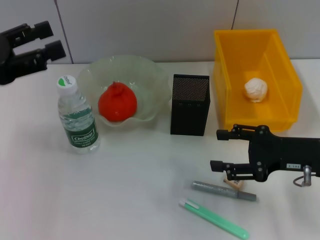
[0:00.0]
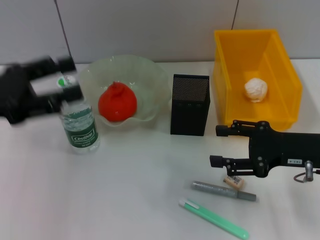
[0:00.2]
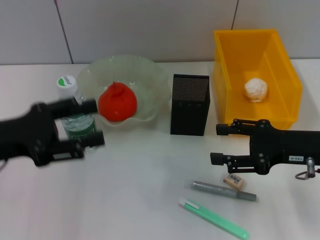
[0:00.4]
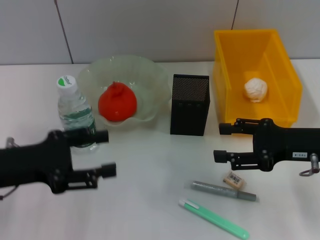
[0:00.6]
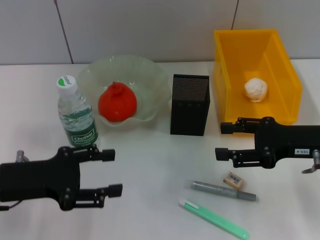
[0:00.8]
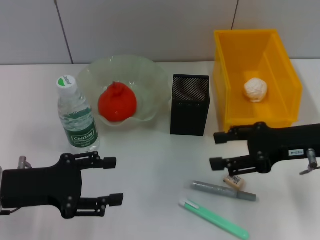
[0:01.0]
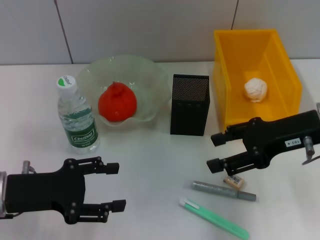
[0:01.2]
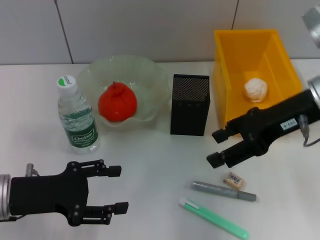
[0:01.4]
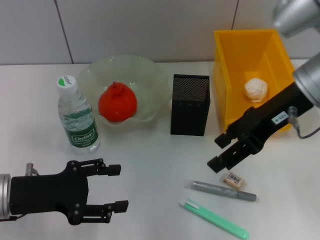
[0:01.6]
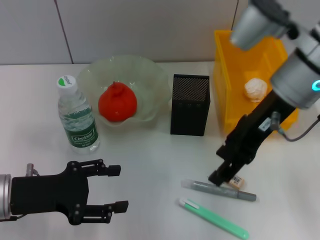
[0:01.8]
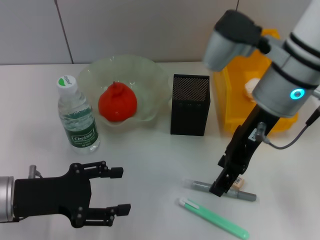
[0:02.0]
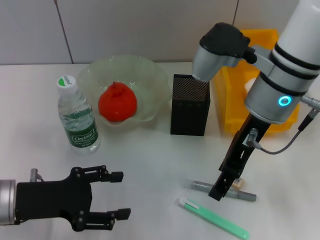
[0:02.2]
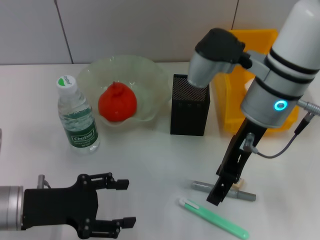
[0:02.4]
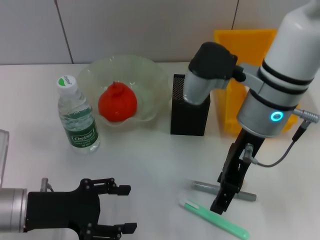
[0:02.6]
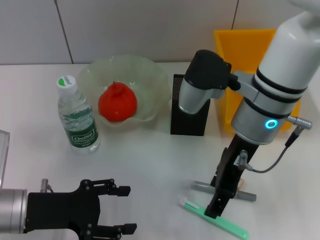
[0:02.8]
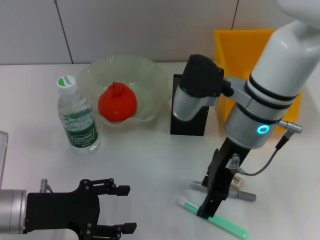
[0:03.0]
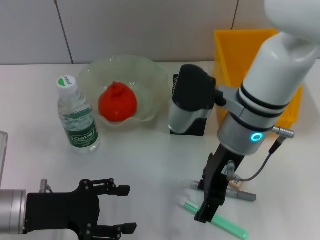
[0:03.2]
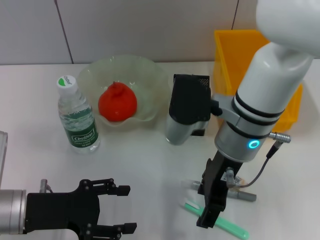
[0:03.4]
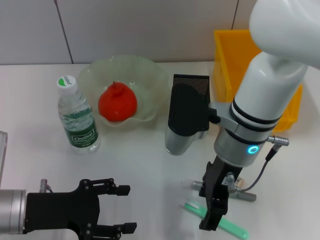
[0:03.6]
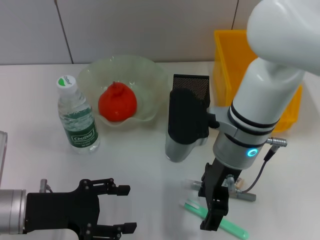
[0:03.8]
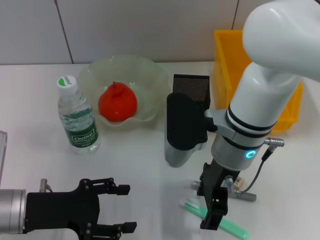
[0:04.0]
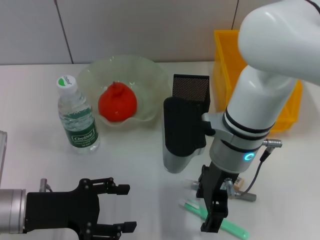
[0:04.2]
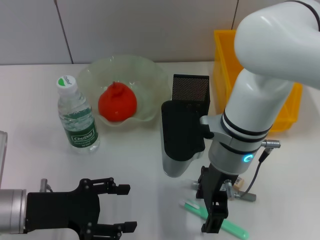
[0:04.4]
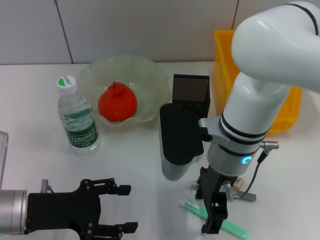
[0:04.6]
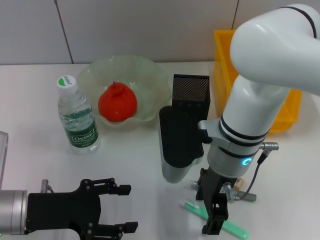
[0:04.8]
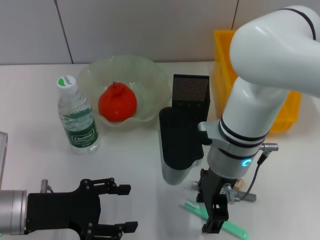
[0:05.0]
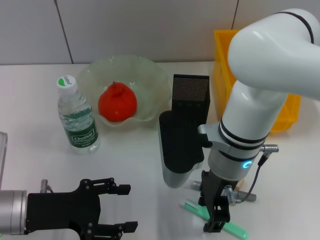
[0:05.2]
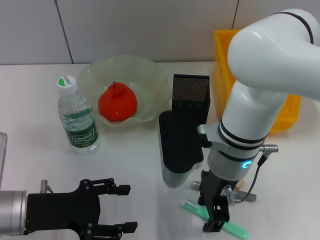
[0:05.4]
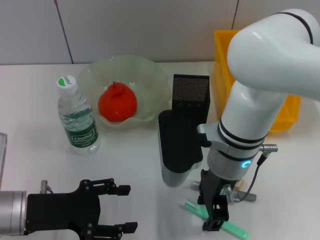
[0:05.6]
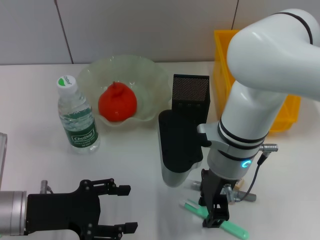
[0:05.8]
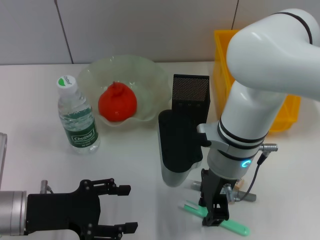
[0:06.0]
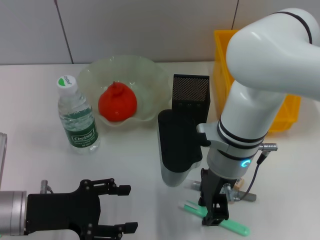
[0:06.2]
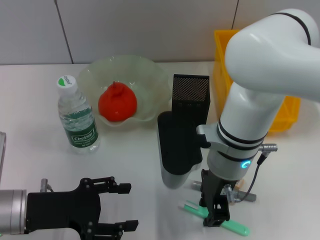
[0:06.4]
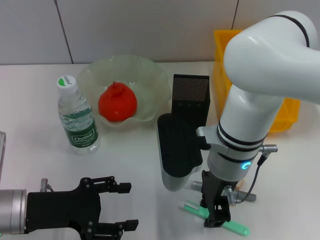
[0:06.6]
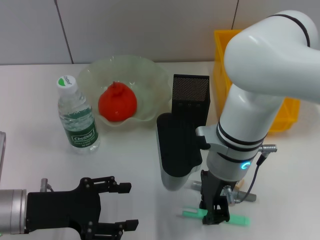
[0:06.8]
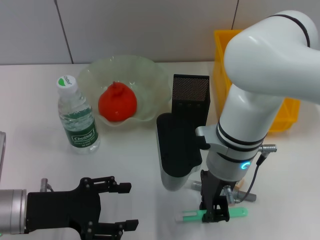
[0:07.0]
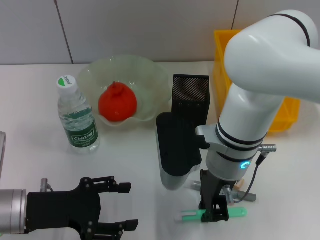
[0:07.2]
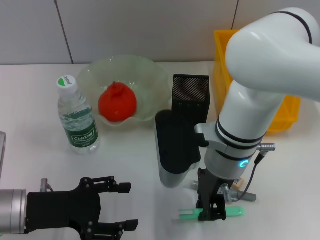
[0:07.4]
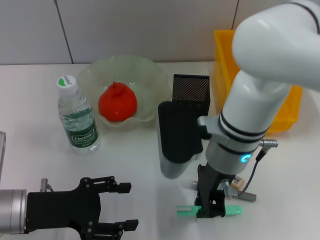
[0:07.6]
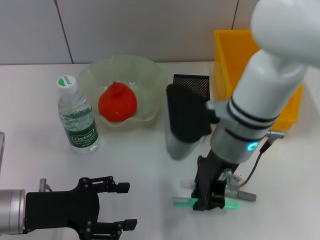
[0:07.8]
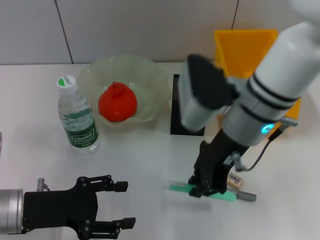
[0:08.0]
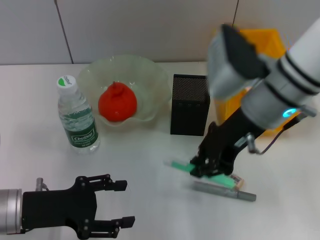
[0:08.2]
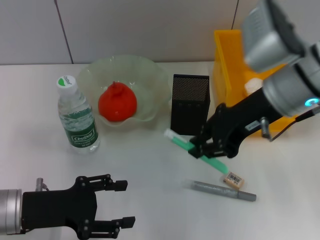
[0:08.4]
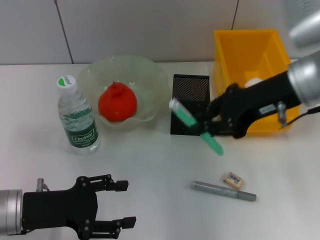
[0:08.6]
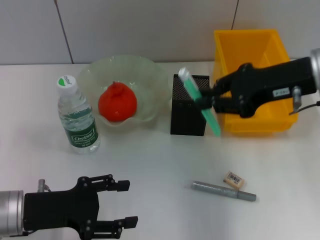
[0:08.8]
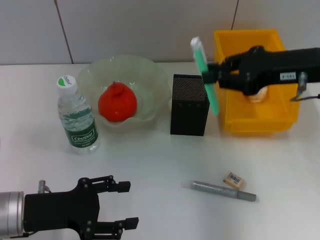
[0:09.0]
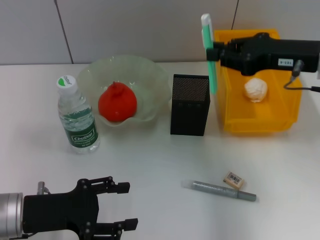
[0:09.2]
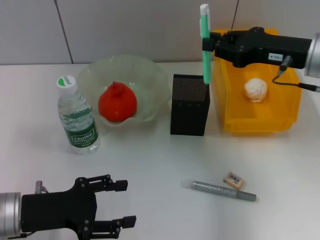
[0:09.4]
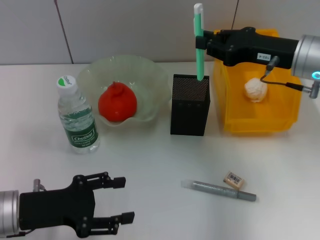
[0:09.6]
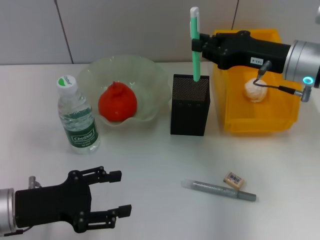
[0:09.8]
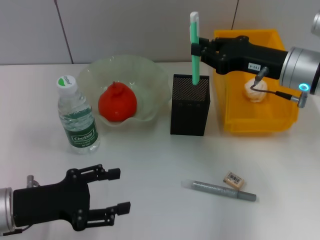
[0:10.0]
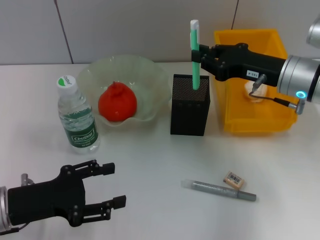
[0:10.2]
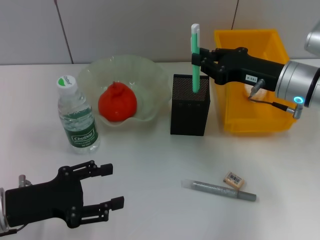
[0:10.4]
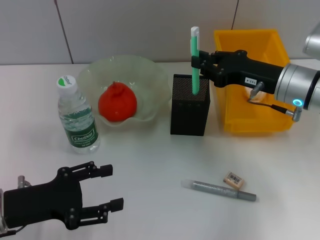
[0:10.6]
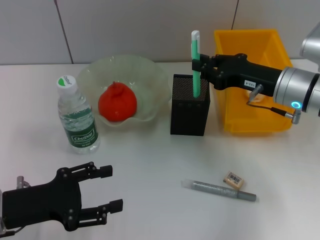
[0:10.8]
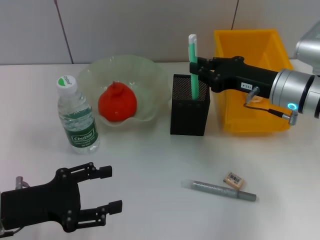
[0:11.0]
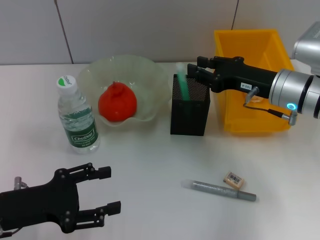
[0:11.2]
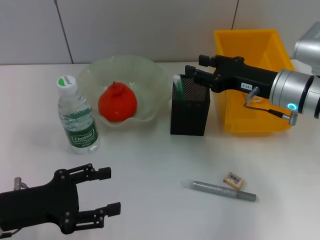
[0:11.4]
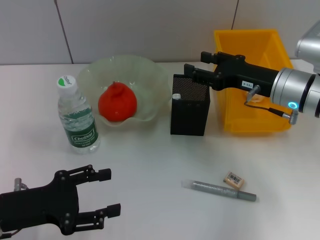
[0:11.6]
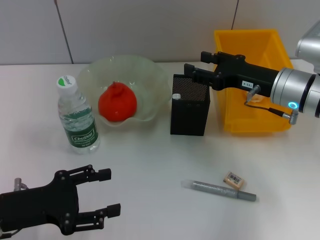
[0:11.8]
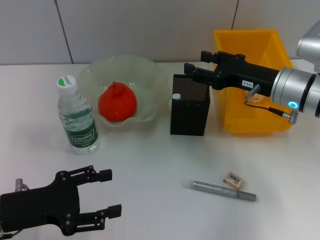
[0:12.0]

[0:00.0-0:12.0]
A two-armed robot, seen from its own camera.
Step, 0:00.0 to 0:07.0: Grab the blue utility knife with the right hand.
Step, 0:07.2 to 0:11.4: Place the blue utility knife into the pen holder with the right hand.
0:00.0 to 0:01.6: The right gripper moves upward, to the left and forward, roughly 15 cm; the left gripper moves downward and to the right, some 15 cm.
0:01.6 to 0:03.0: The right gripper shifts approximately 10 cm to the left and downward.
0:04.4 to 0:06.0: The right gripper closes up.
0:06.0 to 0:07.6: The right gripper closes its fingers.
0:07.6 to 0:09.0: The right gripper goes some 20 cm to the right and upward.
0:09.0 to 0:10.4: The right gripper is displaced downward by roughly 10 cm.
0:10.4 to 0:12.0: The right gripper opens.

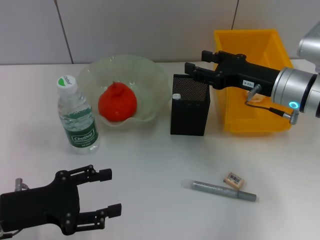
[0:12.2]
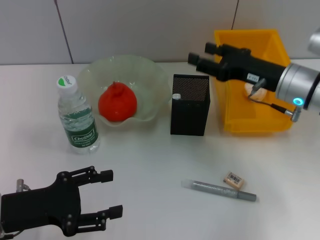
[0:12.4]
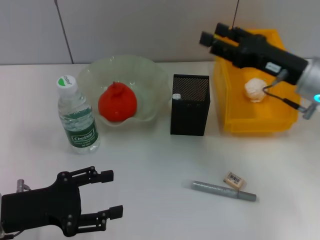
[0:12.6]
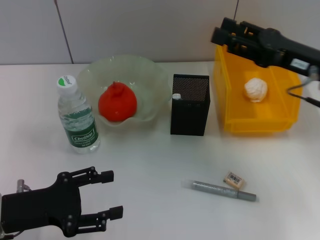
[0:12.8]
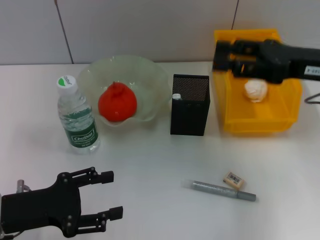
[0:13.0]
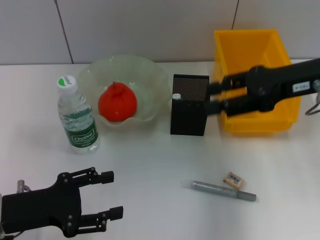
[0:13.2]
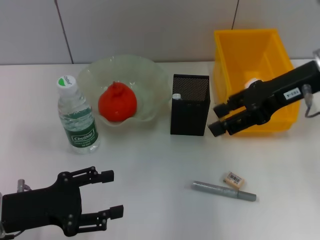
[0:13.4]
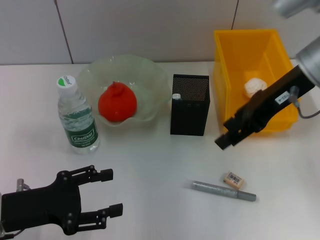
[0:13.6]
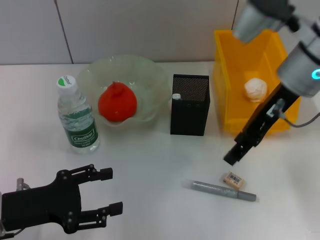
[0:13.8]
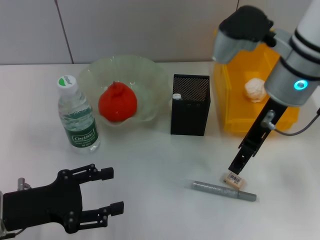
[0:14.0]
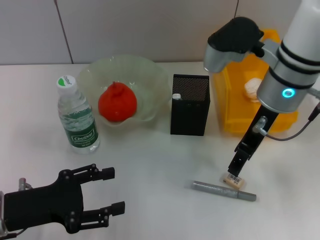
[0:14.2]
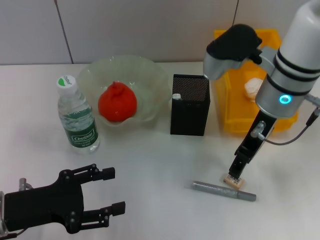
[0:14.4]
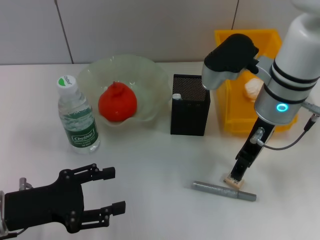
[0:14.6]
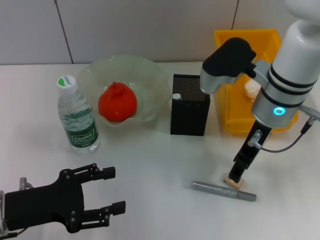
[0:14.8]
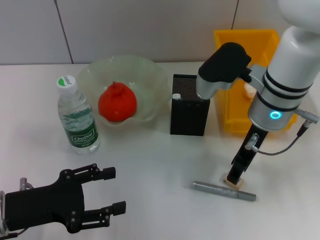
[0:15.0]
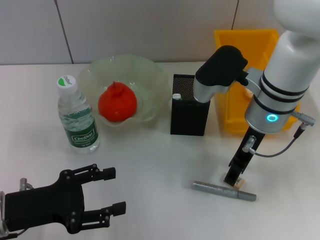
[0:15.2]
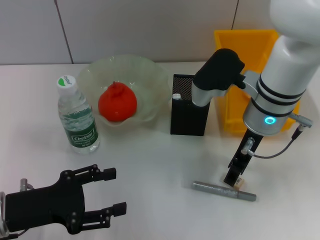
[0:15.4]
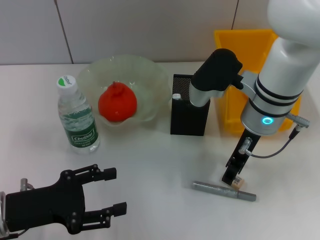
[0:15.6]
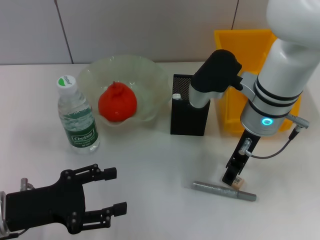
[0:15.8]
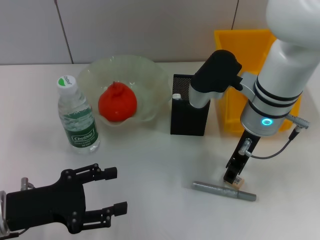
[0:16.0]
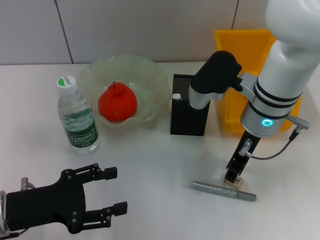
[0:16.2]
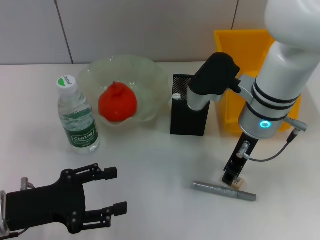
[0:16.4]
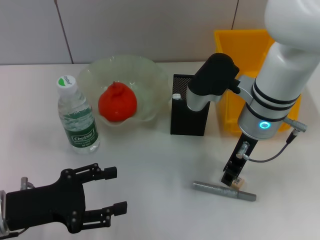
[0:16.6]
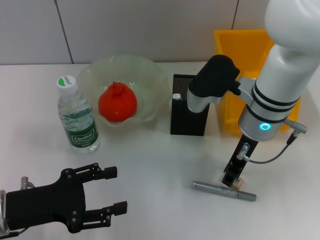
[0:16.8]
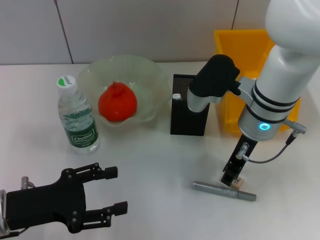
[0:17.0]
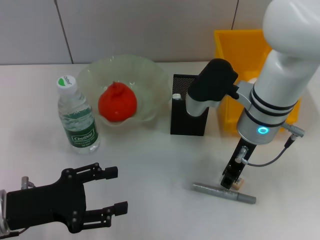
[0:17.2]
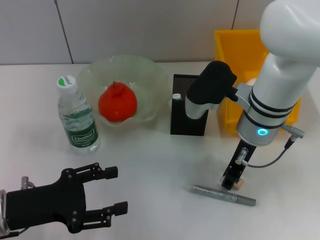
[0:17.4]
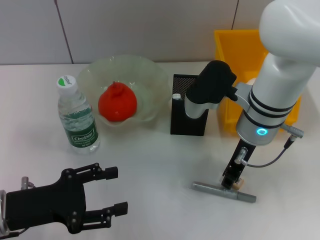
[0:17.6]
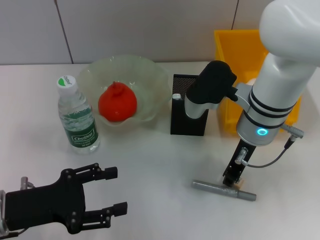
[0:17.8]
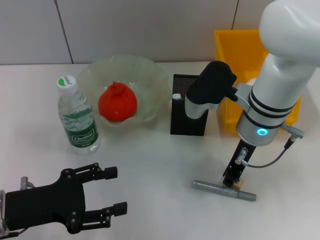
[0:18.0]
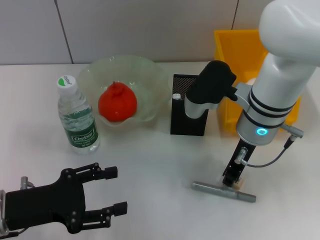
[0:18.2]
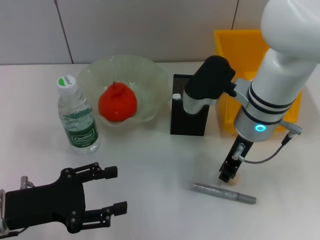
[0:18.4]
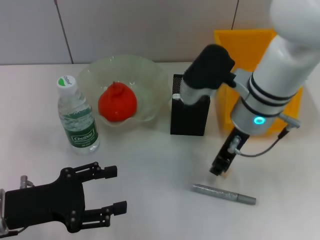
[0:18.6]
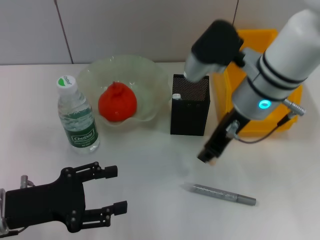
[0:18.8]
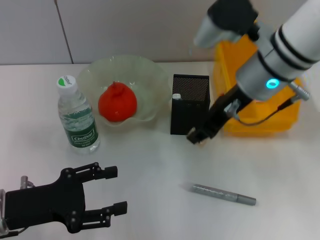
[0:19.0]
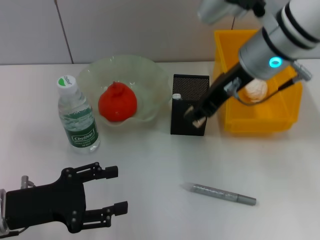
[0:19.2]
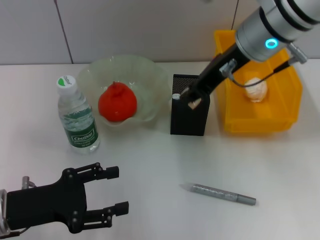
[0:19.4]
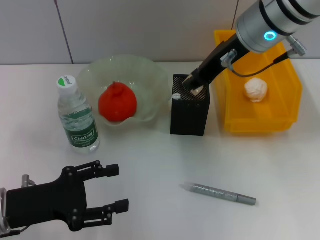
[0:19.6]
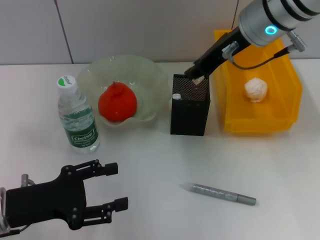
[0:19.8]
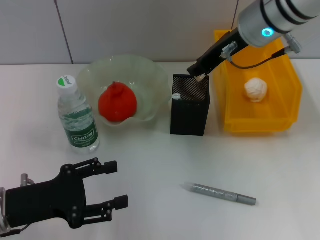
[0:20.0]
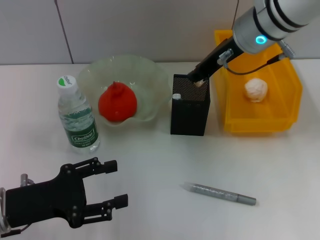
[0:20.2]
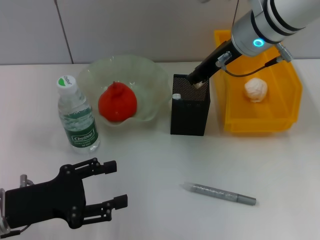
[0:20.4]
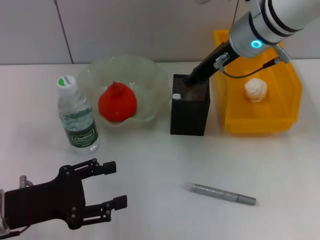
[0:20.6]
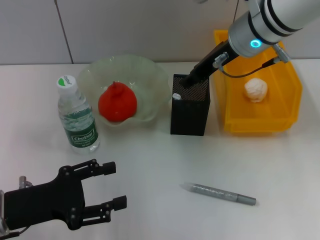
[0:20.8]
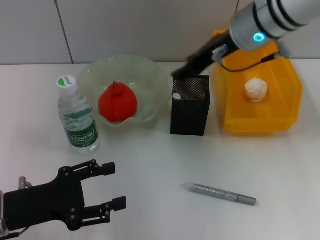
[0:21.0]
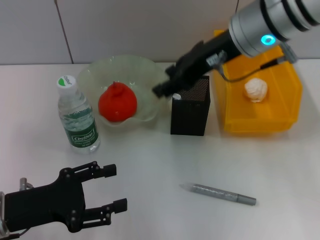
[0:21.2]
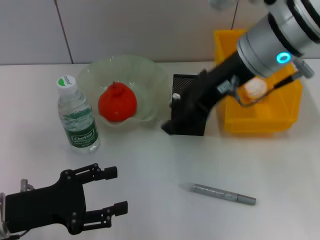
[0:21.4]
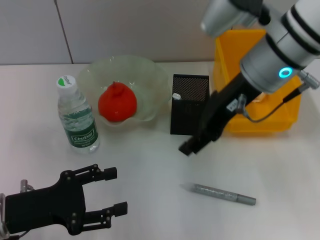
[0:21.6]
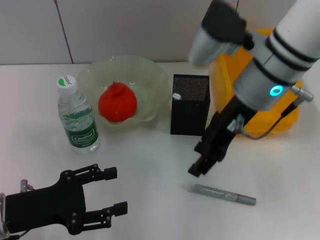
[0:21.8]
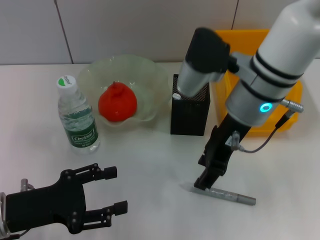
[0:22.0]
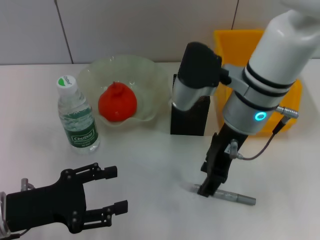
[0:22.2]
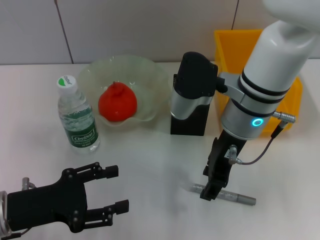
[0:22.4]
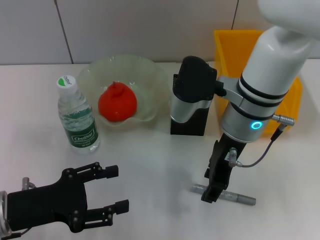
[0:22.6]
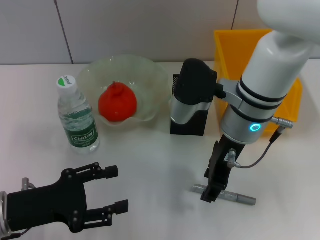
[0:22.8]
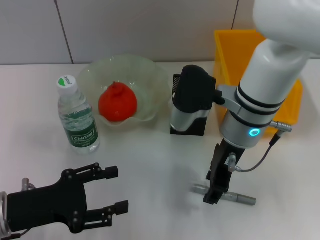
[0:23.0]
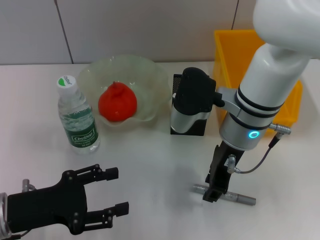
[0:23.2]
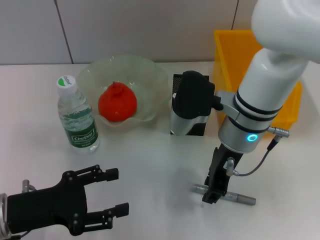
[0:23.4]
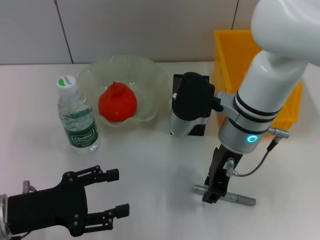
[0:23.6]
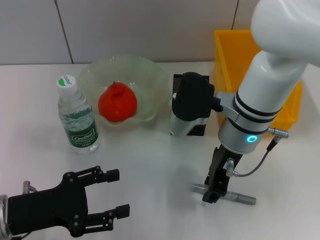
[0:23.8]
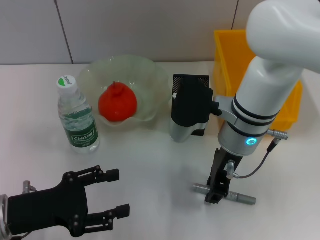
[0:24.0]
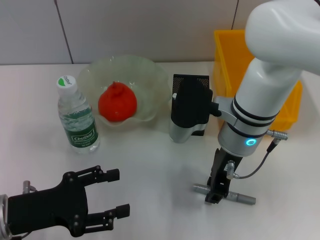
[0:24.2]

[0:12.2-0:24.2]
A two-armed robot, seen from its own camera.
Step, 0:12.2 to 0:18.0: Grab the eraser with the right hand.
Step, 0:18.2 to 0:20.8: Put the eraser into the pen holder with the right hand.
0:12.2 to 0:13.8: The right gripper is displaced upward by roughly 10 cm.
0:13.8 to 0:15.2: The right gripper moves downward, roughly 5 cm.
0:15.2 to 0:16.6: Neither gripper changes place.
0:16.6 to 0:18.2: The two grippers keep their place.
0:18.2 to 0:19.8: The right gripper moves upward, approximately 10 cm.
0:19.8 to 0:21.2: The right gripper opens its fingers.
0:21.2 to 0:22.6: The right gripper shifts about 10 cm downward.
0:22.6 to 0:24.2: The grippers stay close to where they were, moving slightly.
